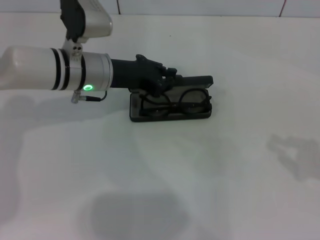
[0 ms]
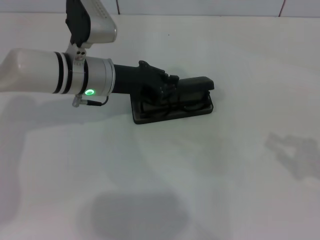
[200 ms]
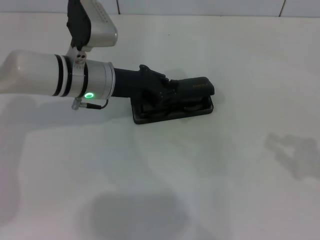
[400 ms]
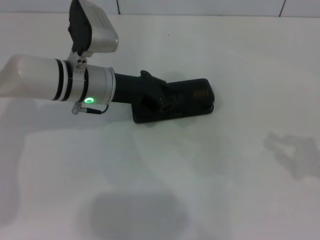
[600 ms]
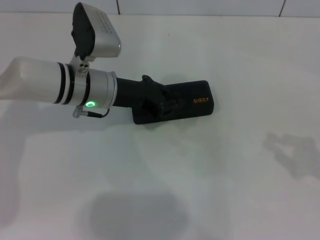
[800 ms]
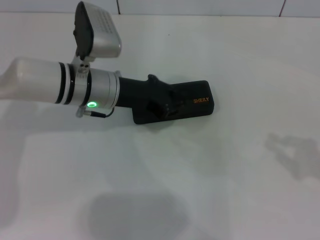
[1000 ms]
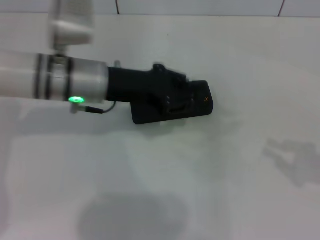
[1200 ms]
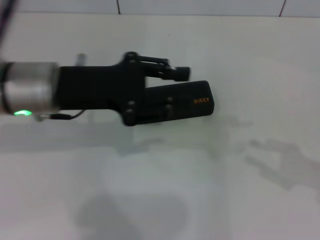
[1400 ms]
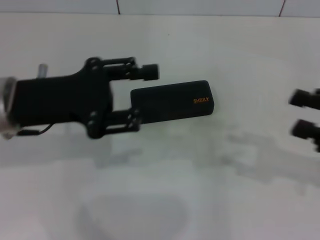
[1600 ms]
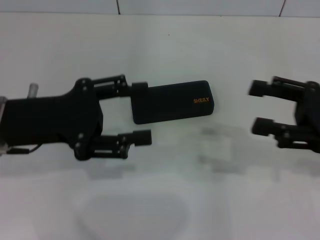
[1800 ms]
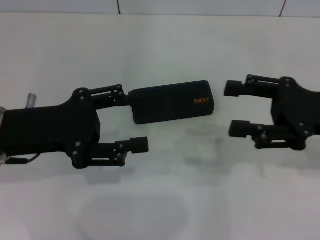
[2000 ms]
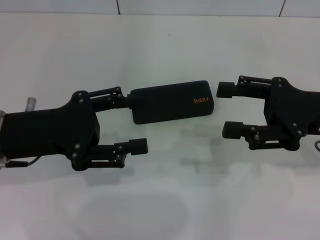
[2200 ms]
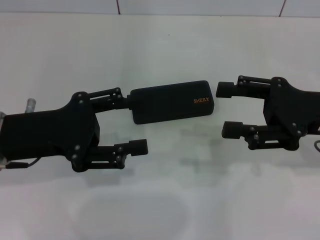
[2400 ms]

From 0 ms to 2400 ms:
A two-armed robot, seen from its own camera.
From 1200 ms to 2400 ms: The left gripper is displaced backward and to the left by approximately 15 cm, and opens. Meanwhile the right gripper heads to the left and forward, covering approximately 15 cm, and opens its fingers.

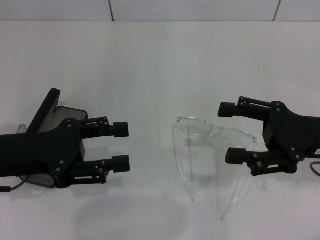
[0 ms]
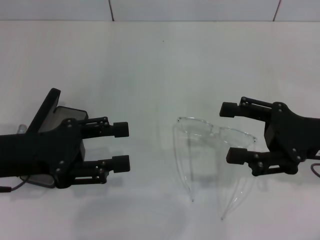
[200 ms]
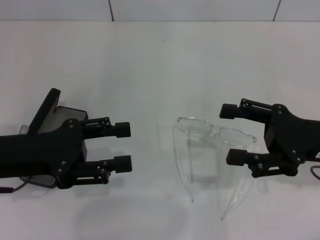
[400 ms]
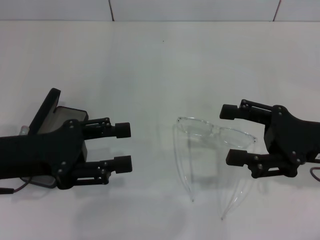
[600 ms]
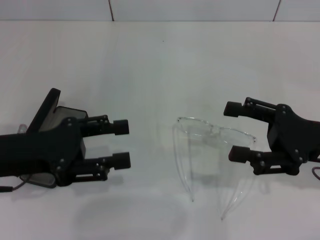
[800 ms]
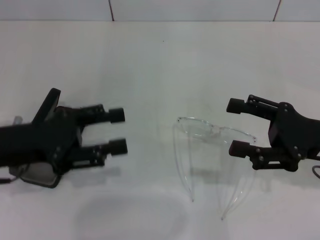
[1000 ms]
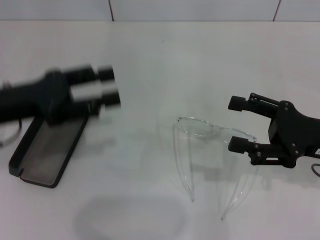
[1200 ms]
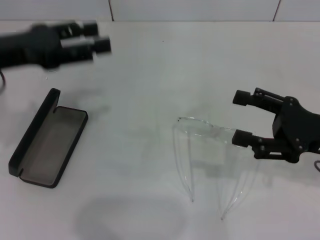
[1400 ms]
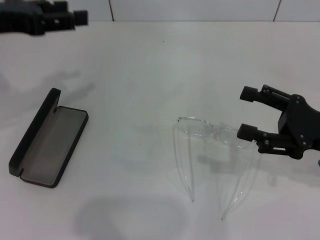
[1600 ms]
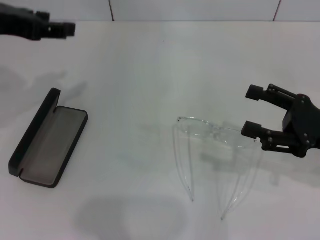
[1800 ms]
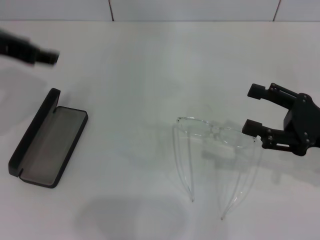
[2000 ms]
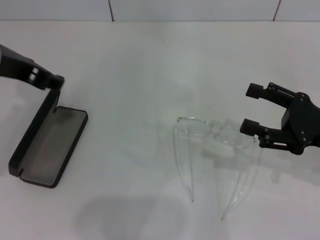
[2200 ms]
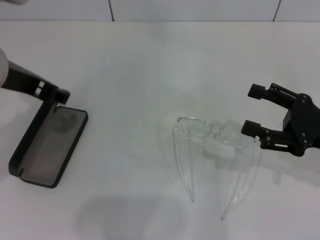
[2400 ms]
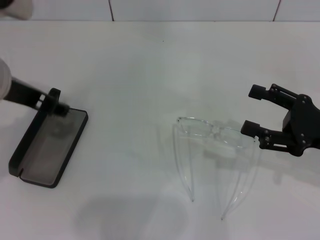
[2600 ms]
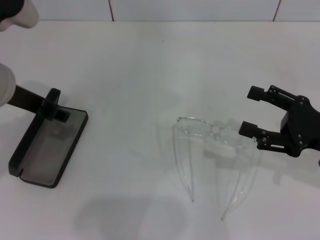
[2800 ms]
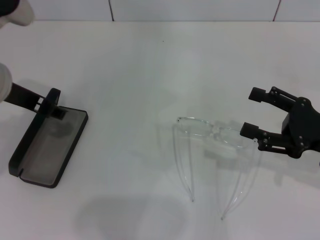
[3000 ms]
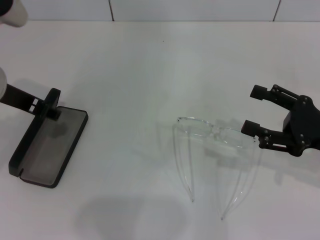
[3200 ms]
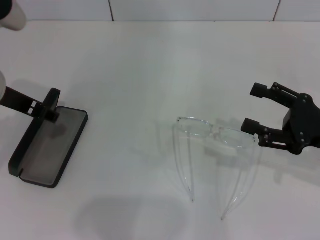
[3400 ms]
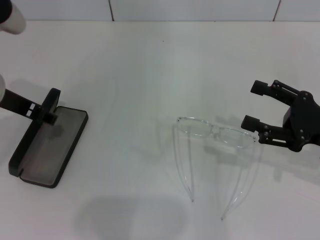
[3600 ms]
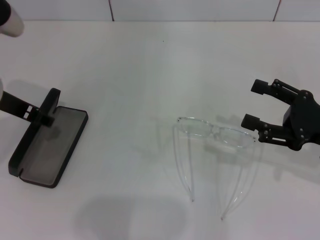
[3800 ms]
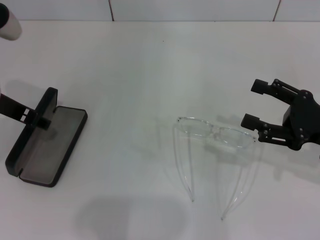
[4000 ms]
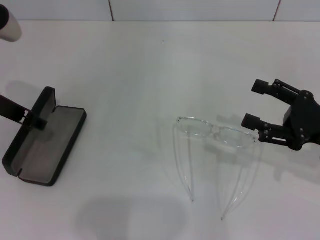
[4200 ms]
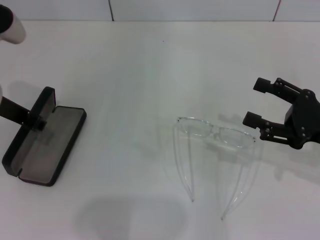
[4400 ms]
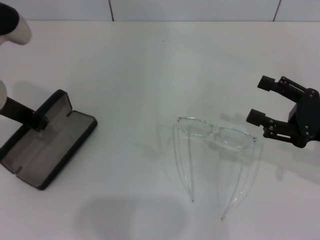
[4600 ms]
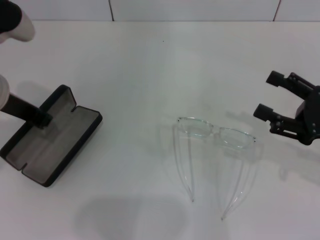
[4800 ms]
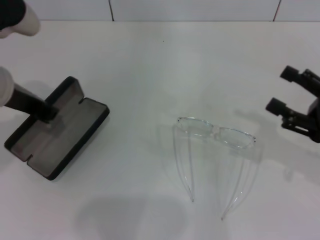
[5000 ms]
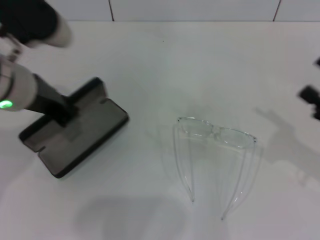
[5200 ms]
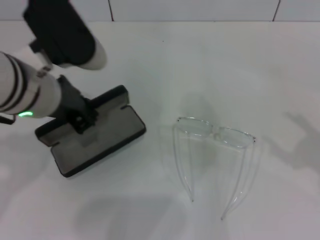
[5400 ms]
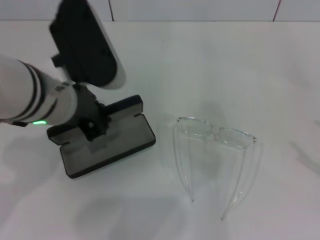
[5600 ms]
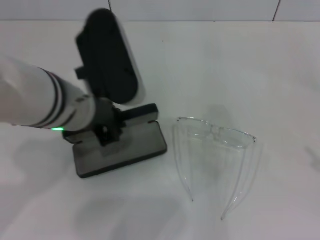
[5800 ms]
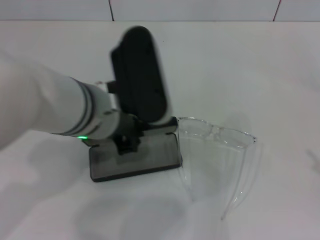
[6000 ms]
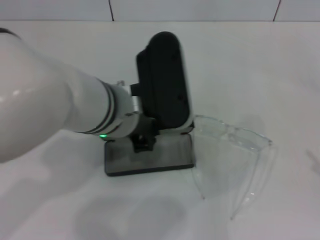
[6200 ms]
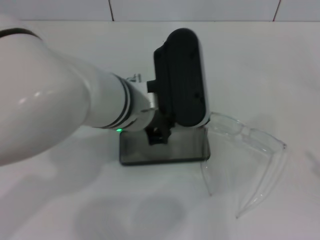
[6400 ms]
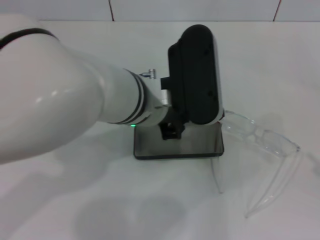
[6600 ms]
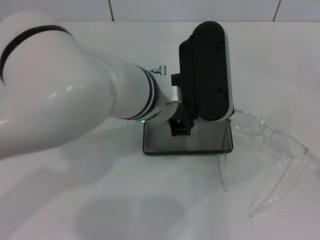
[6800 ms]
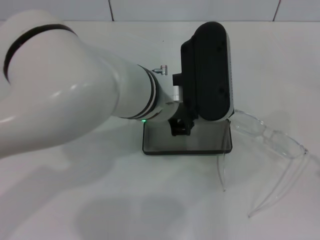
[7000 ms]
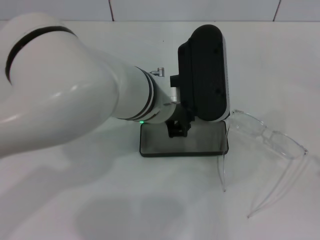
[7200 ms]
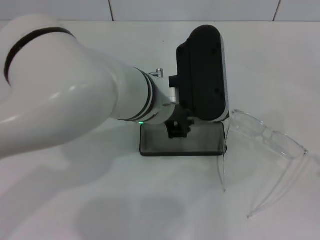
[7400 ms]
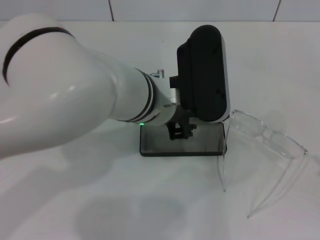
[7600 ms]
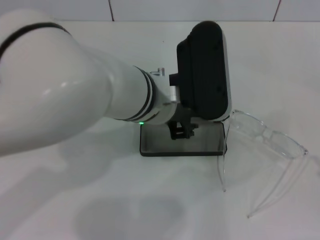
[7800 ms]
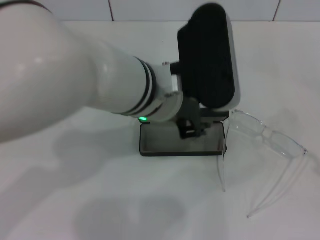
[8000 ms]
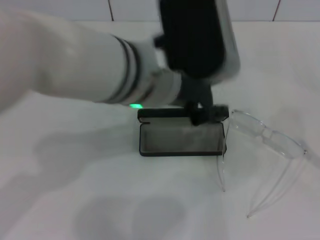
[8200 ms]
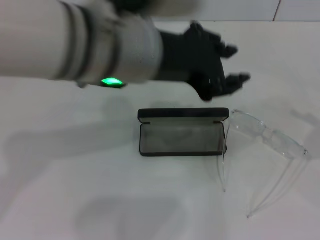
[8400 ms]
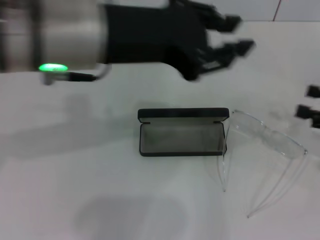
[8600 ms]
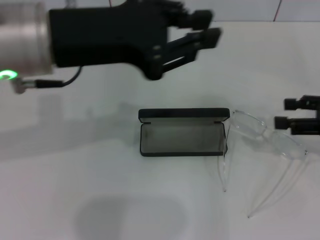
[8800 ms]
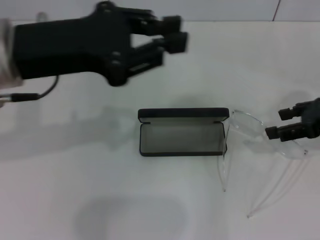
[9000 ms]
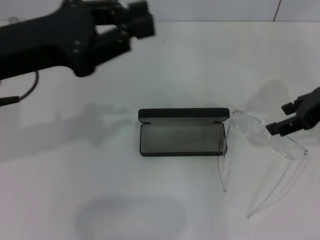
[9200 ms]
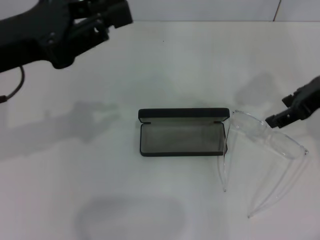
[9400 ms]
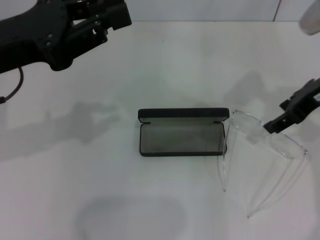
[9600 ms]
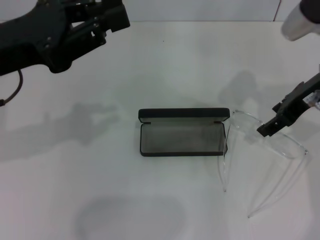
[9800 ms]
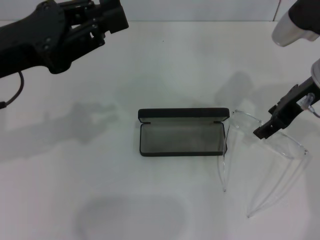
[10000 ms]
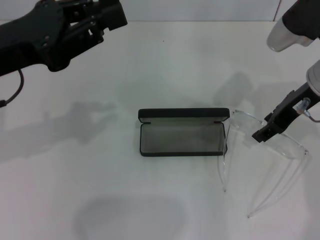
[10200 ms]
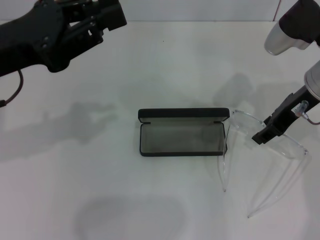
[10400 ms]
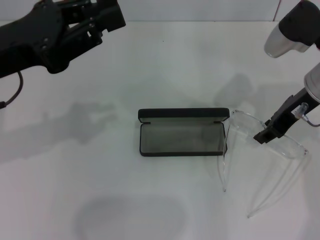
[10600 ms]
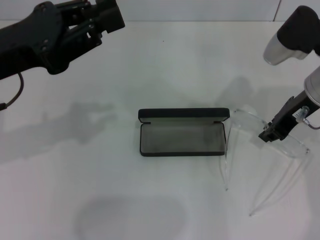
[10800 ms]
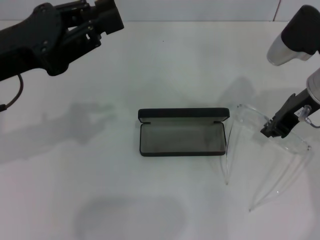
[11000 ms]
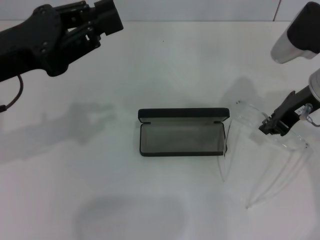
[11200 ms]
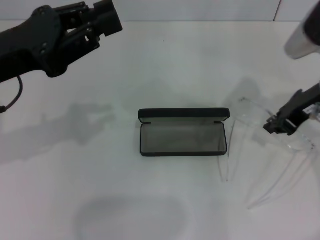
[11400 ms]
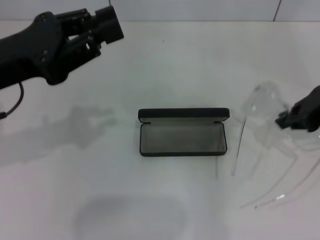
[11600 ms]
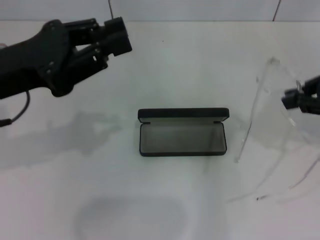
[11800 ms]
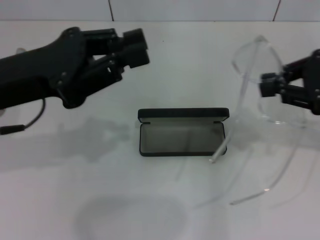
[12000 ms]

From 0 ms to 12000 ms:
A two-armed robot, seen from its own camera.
Step, from 0 ms to 4200 ms: Grab the glasses case with your left hand.
Step, from 4600 ms to 8000 ms: Place the glasses case in the center of the table with your left hand.
Step, from 8200 ms to 10800 ms: Grab the eyeglass frame with your right hand.
From 0 ms to 1600 ms: The left gripper goes roughly 15 cm upward and forward.
From 1600 ms to 3000 ms: The left gripper shifts about 5 cm to the right.
From 3000 ms to 4400 ms: The grippers stay close to where they were, moving slightly.
From 4400 ms to 6000 ms: The left gripper goes about 15 cm to the right, and closes up. Meanwhile the right gripper moves backward and to the right, approximately 15 cm.
From 6000 ms to 7600 ms: The left gripper goes some 5 cm to the right.
From 7600 ms to 9000 ms: The left gripper heads to the left and upward, covering roughly 20 cm; the right gripper heads forward and to the left, covering approximately 20 cm.
From 9000 ms to 10400 ms: The right gripper travels to the left and forward by approximately 10 cm. The left gripper changes place by approximately 5 cm.
From 10400 ms to 12000 ms: The right gripper goes roughly 10 cm backward, to the right and upward, and closes its fingers.

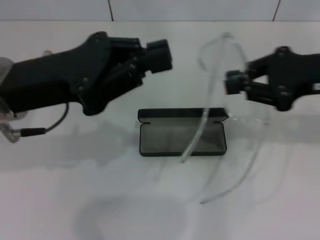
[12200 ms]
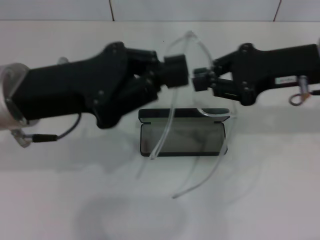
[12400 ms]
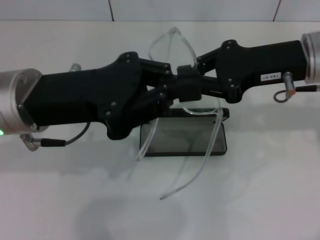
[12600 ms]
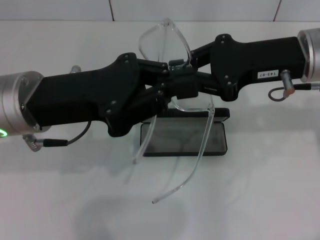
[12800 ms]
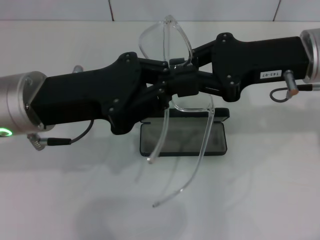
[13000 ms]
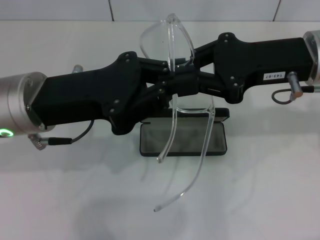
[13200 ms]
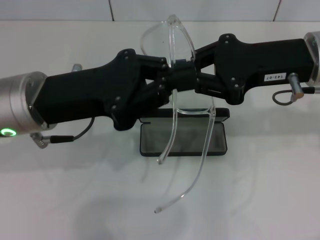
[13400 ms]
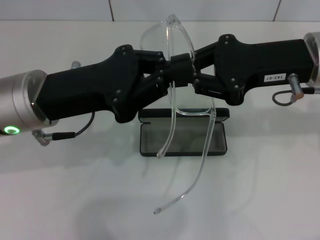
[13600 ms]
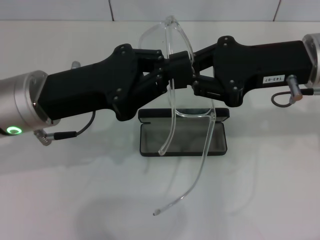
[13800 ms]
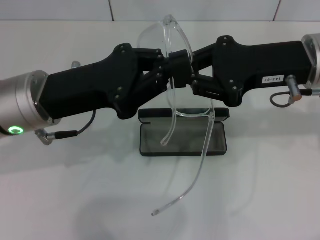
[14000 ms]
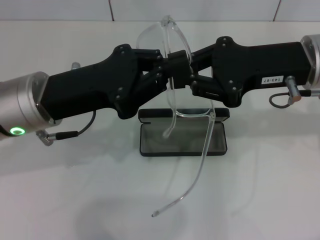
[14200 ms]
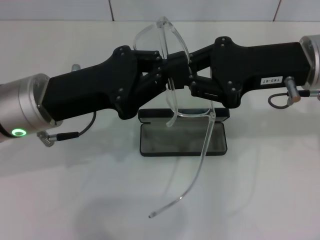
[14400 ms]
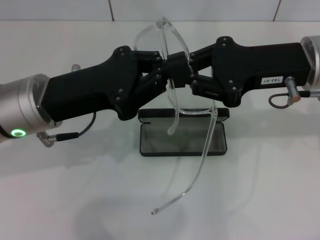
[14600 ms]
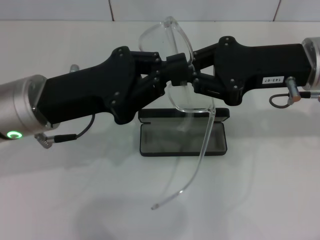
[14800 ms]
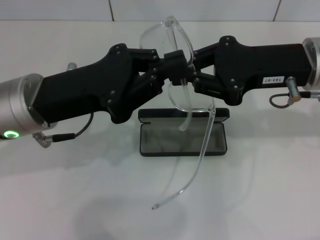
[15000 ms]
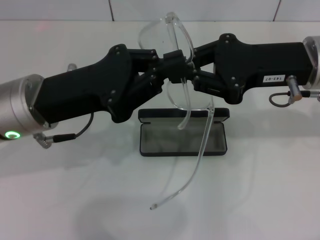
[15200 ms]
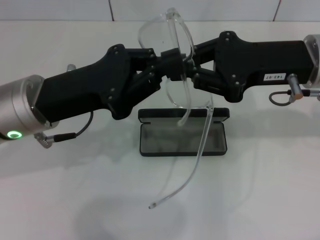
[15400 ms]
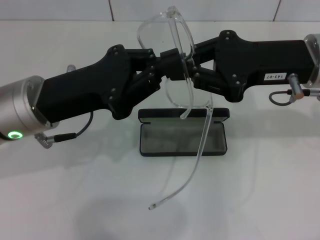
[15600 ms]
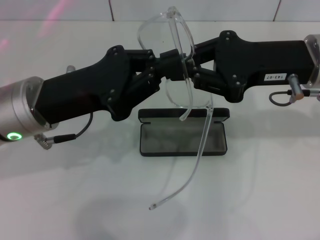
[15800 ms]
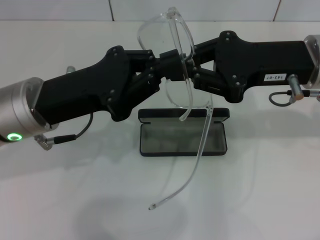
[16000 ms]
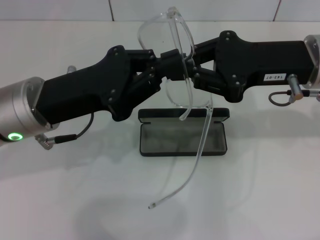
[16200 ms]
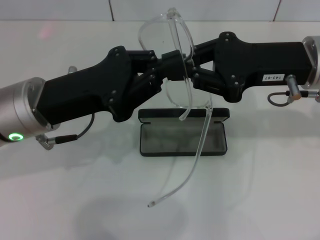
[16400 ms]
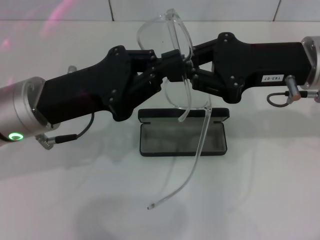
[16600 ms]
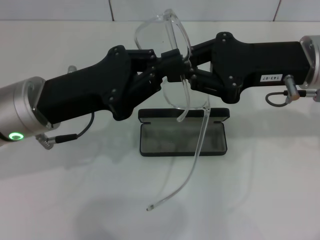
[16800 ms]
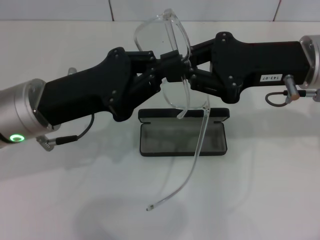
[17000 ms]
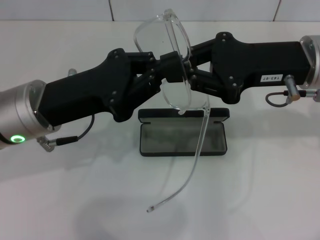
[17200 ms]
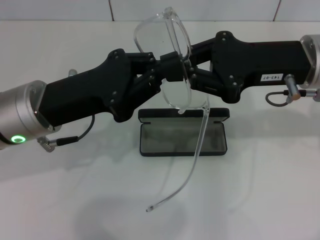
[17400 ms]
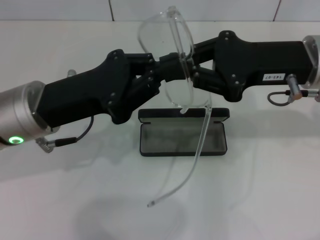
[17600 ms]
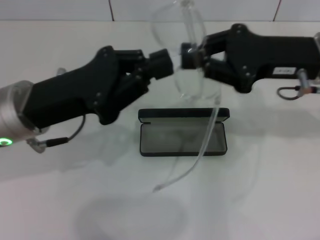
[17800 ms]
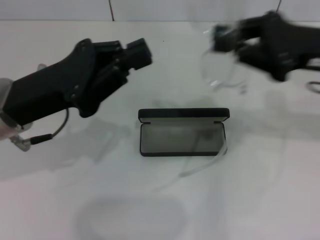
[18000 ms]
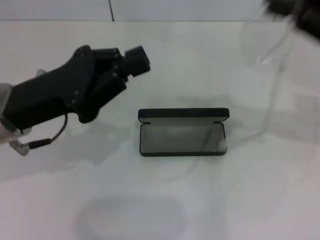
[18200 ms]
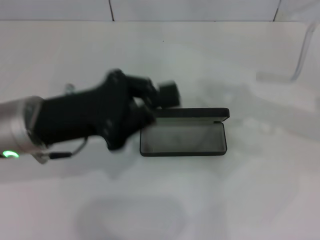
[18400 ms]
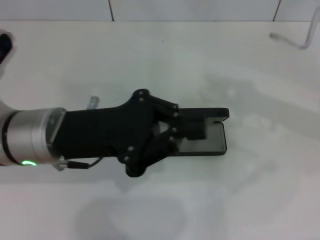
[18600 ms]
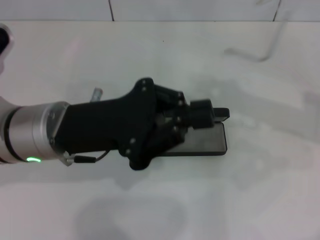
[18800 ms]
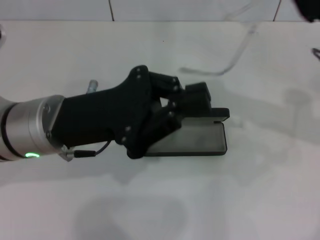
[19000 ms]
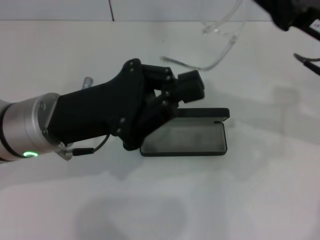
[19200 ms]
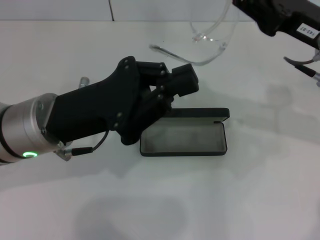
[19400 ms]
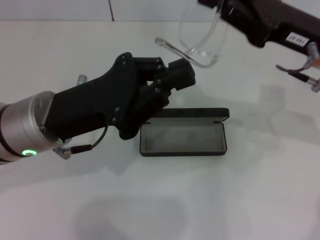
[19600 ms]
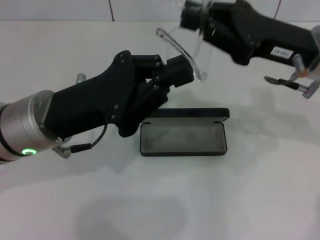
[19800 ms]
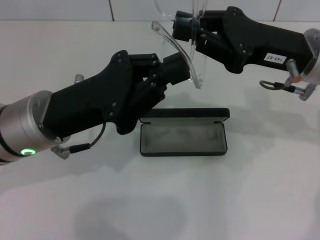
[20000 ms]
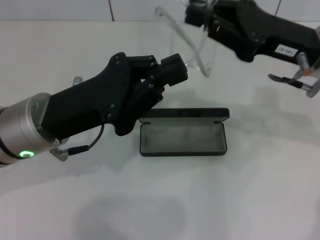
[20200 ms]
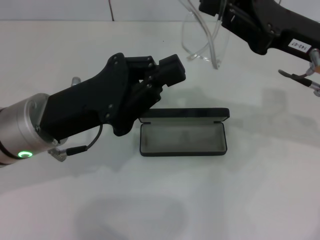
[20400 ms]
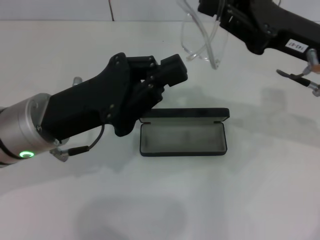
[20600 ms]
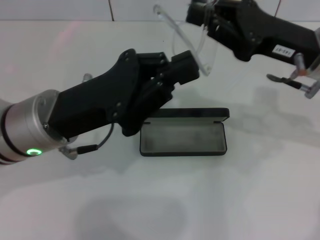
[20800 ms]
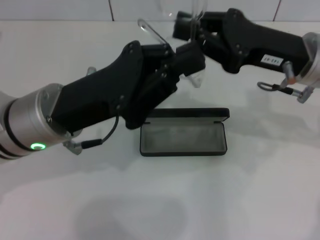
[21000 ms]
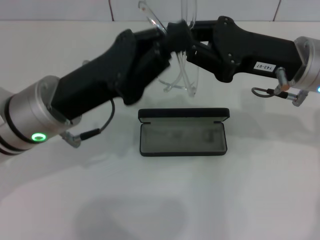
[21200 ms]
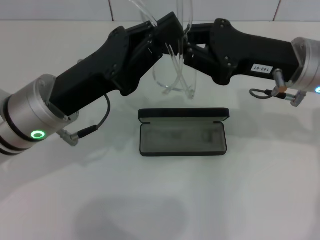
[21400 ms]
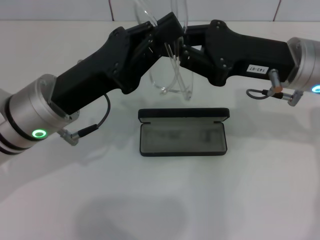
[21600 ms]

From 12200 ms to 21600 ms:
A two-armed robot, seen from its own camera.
From 12200 ms to 13800 ms: The right gripper moves to the left, roughly 5 cm.
From 13800 ms to 15400 ms: Both grippers stay put.
From 15400 ms to 17000 ms: Both grippers stay put.
From 17000 ms to 18400 ms: The right gripper heads to the right, covering approximately 10 cm.
From 18400 ms to 20000 ms: The right gripper is displaced to the left by roughly 10 cm.
